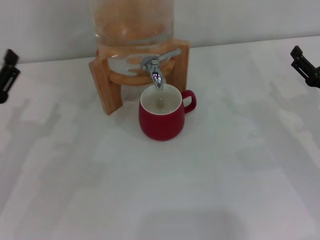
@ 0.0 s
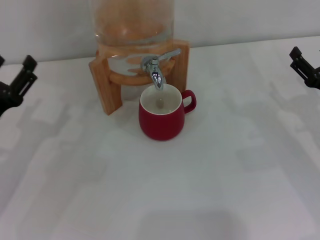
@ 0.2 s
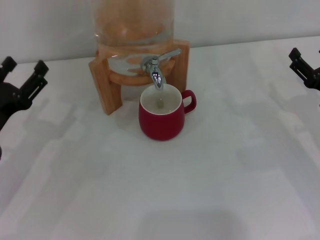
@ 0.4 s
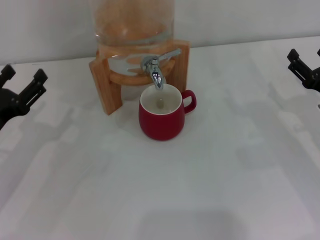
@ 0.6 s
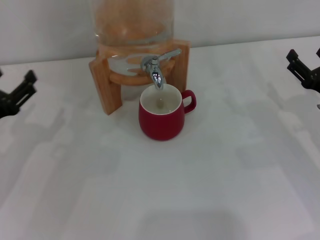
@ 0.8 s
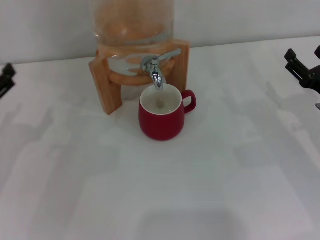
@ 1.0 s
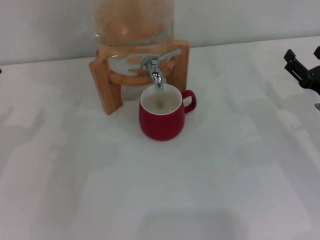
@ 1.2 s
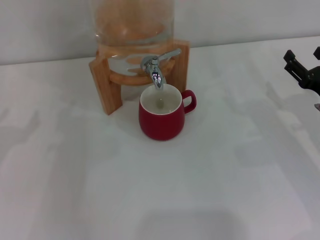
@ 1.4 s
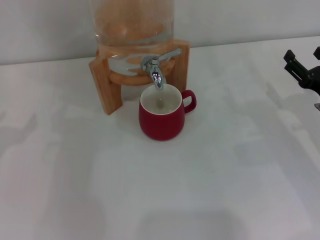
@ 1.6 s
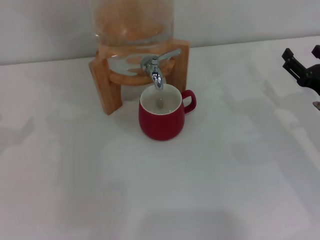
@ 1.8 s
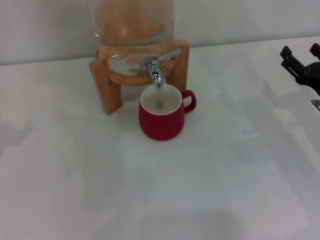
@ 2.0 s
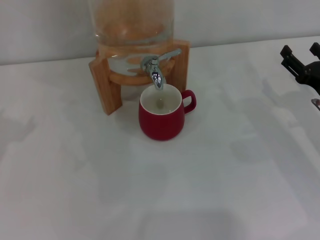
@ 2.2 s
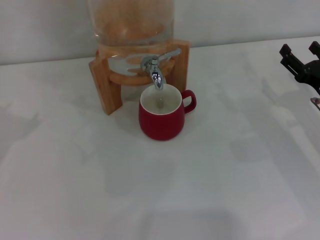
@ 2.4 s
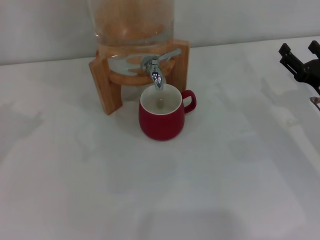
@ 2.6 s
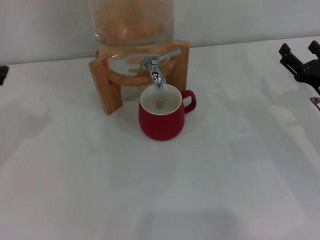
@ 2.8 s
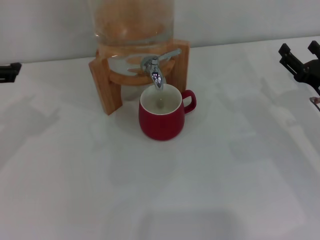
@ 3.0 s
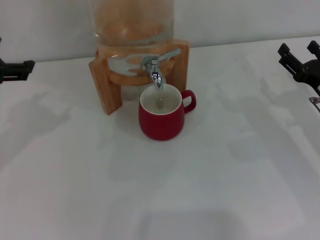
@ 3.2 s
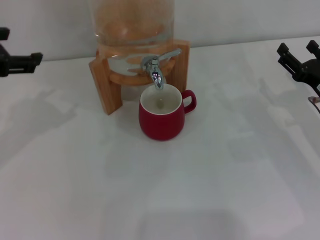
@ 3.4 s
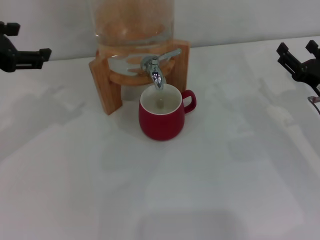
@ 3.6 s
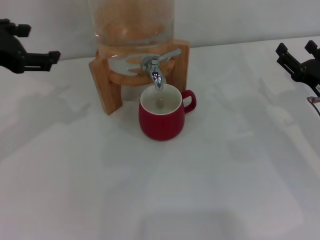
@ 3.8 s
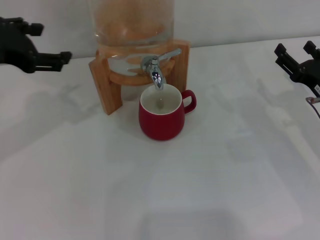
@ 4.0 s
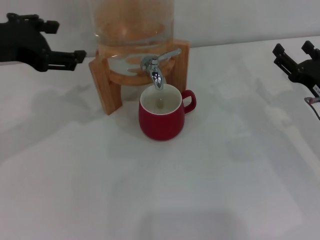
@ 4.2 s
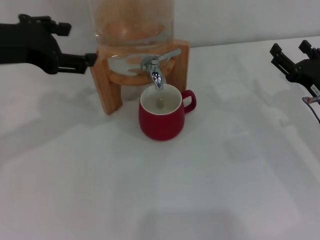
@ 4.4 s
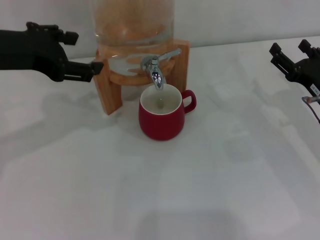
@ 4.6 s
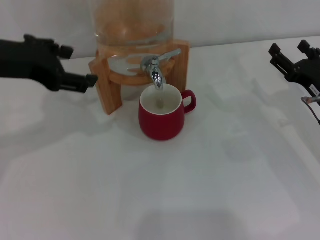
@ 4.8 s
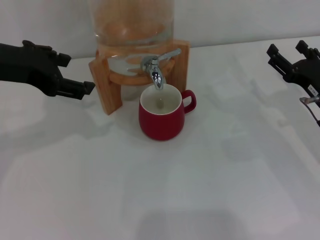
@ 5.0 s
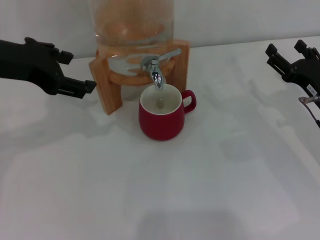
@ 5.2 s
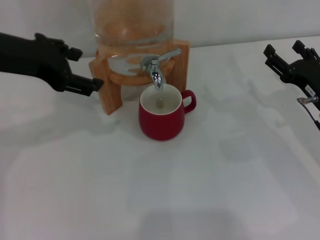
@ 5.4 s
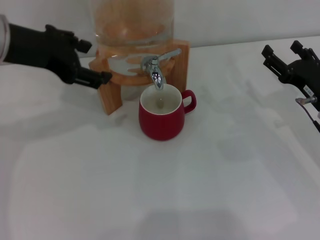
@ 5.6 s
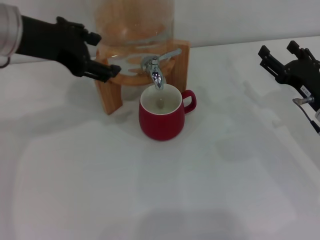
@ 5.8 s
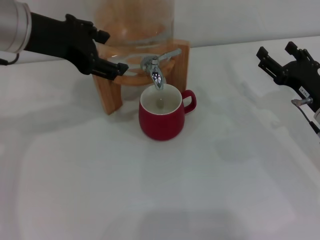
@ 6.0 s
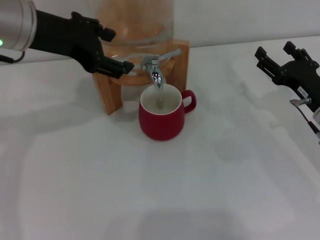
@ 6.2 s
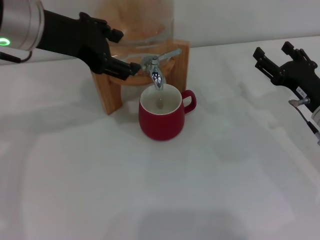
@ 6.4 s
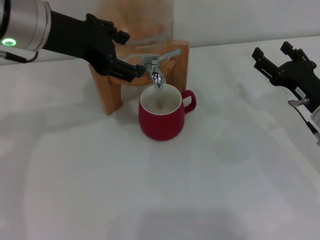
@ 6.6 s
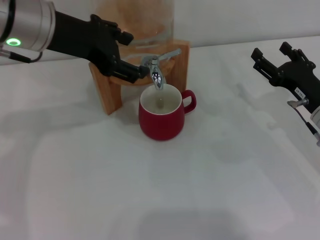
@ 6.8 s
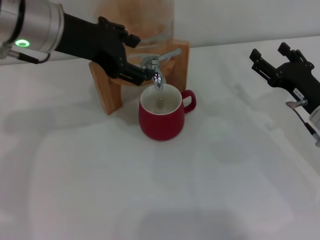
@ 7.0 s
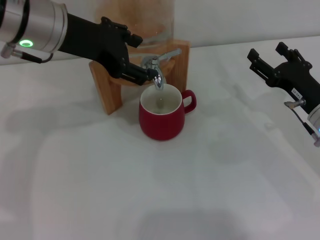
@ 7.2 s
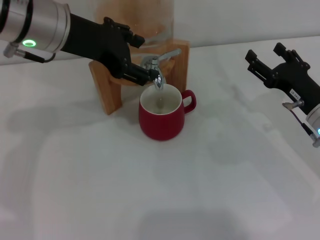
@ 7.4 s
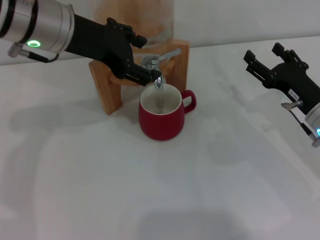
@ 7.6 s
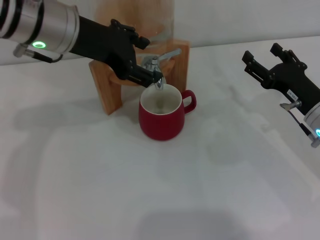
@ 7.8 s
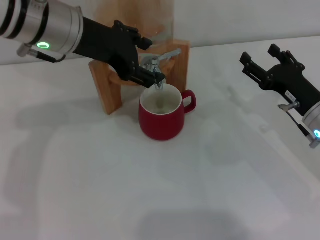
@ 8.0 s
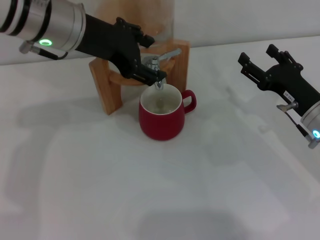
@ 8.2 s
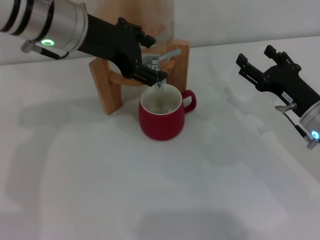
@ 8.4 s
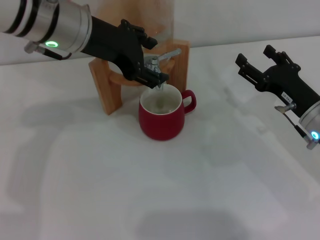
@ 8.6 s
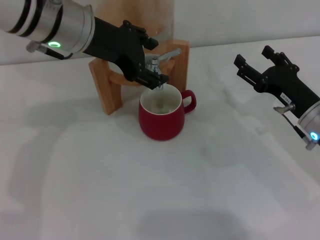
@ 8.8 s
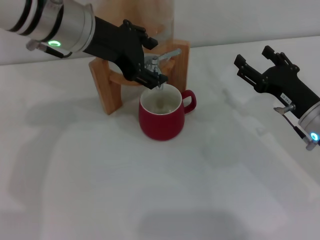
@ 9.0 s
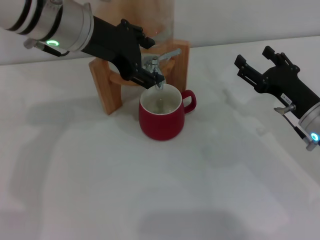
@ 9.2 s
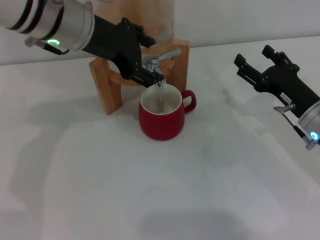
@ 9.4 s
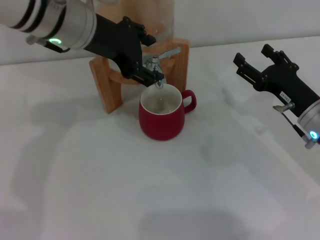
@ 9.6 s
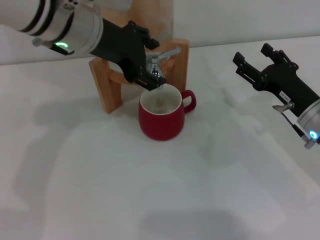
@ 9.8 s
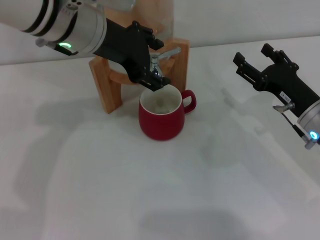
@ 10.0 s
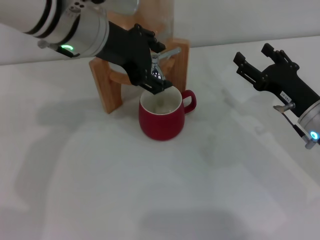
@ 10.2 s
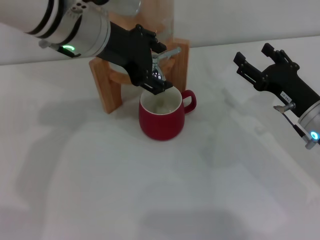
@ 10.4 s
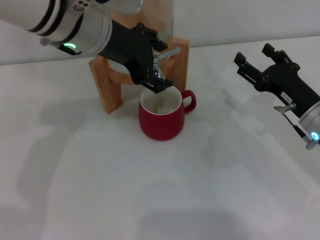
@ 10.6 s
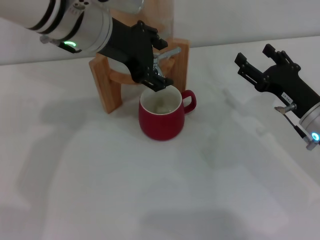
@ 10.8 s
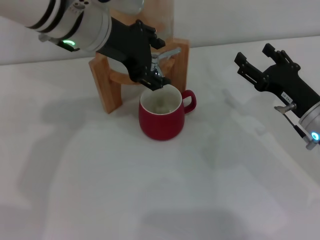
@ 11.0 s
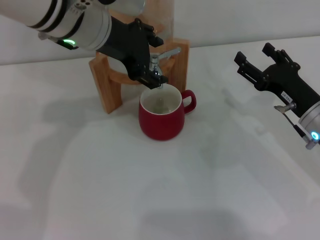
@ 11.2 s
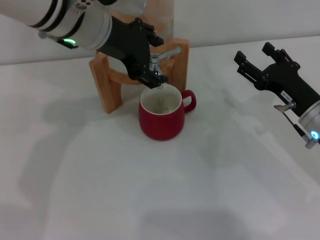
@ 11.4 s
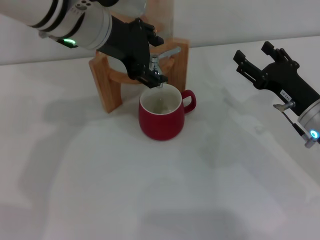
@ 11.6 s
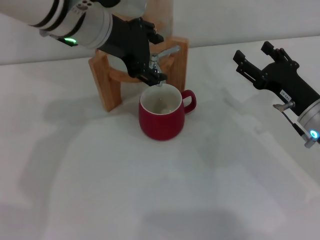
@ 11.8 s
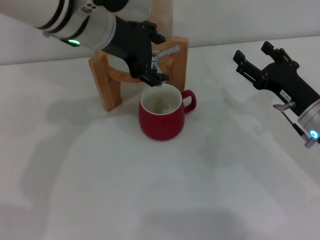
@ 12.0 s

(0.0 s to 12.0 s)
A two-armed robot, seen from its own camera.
Task of the whole recording: the right gripper pick up the red cup and place it horizontally under the faucet, the left gripper turn on the faucet to fill the cup, and then turn off the faucet.
0.0 s - 1.6 s: The left gripper moves upward, some 10 cm.
3.0 s - 4.4 s: The left gripper heads to the right, covering about 5 cm.
4.4 s - 6.0 s: The left gripper moves roughly 5 cm.
6.0 s - 7.6 s: The grippers stay close to where they were, moving slightly.
7.6 s - 10.4 s: The grippers move only a little.
10.4 s - 12.0 s: There are only small adjustments of the grippers.

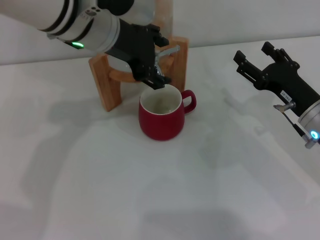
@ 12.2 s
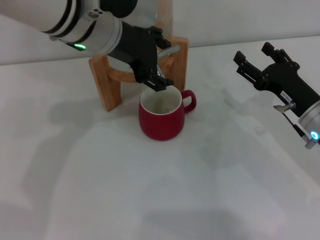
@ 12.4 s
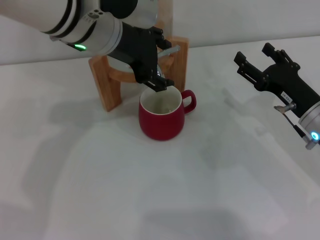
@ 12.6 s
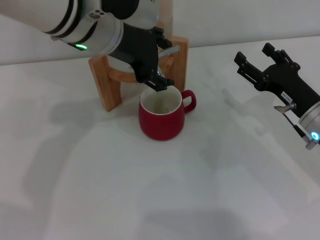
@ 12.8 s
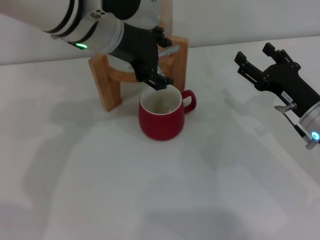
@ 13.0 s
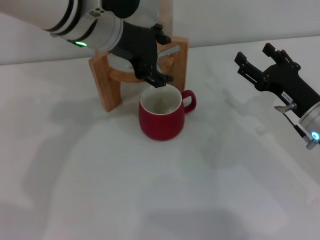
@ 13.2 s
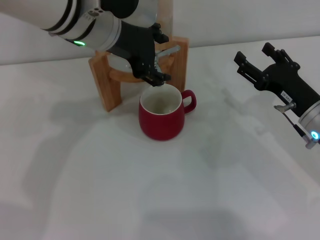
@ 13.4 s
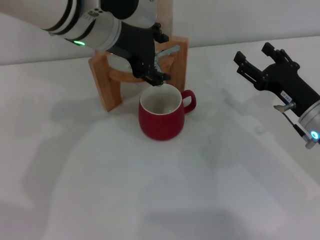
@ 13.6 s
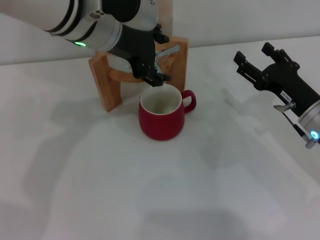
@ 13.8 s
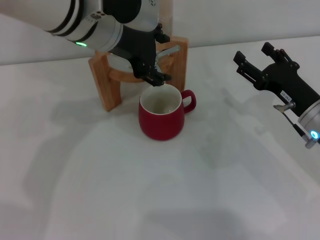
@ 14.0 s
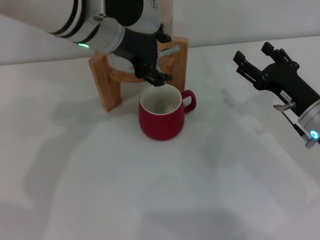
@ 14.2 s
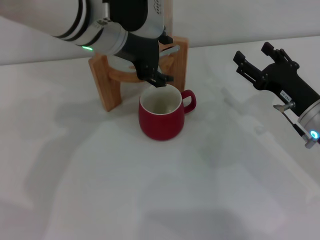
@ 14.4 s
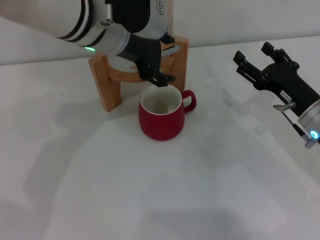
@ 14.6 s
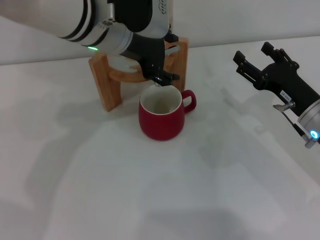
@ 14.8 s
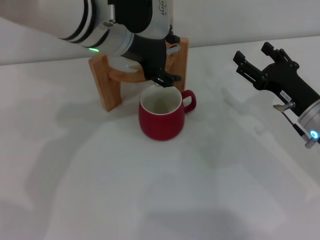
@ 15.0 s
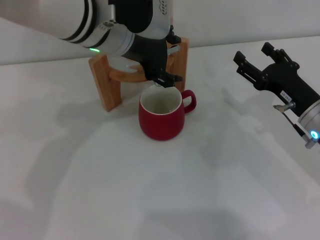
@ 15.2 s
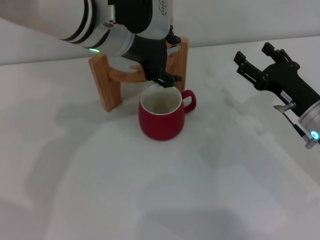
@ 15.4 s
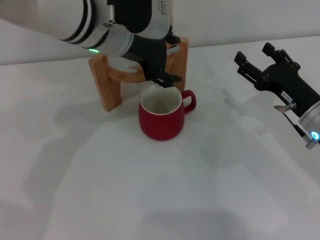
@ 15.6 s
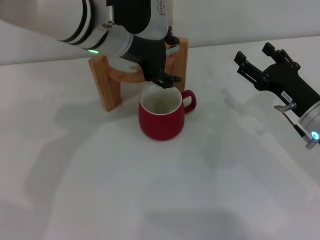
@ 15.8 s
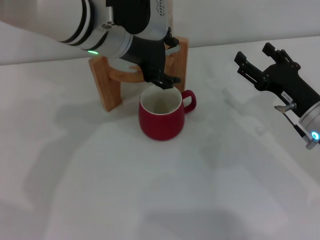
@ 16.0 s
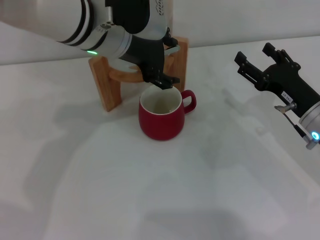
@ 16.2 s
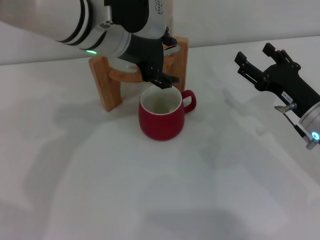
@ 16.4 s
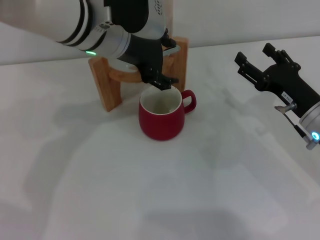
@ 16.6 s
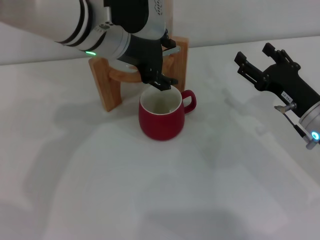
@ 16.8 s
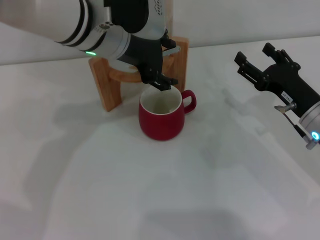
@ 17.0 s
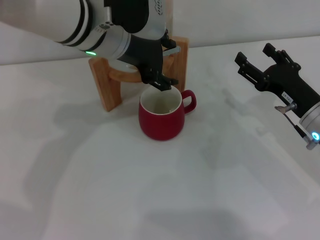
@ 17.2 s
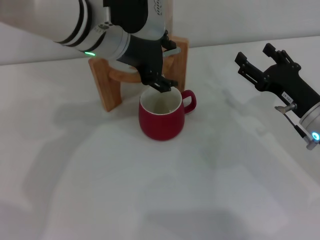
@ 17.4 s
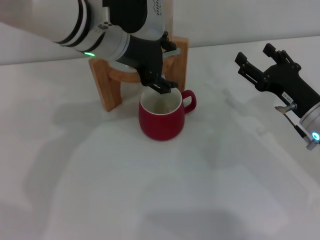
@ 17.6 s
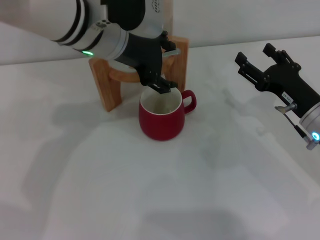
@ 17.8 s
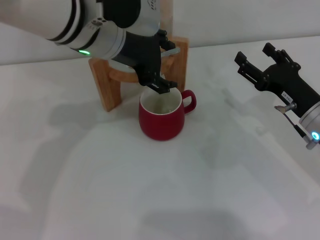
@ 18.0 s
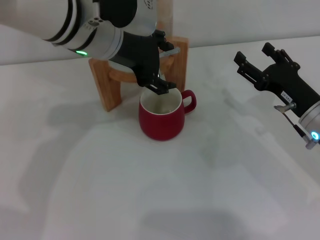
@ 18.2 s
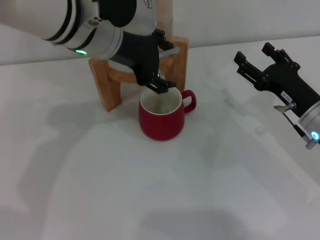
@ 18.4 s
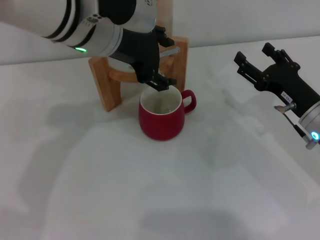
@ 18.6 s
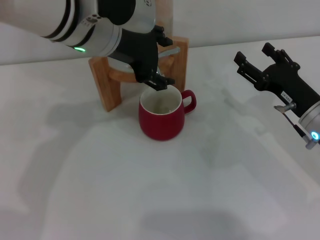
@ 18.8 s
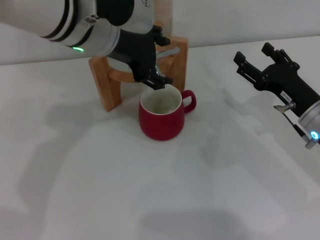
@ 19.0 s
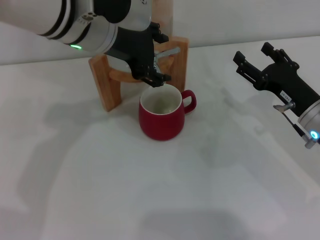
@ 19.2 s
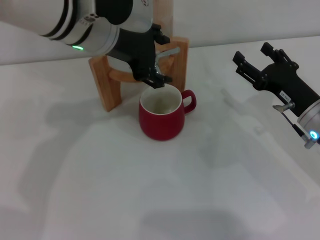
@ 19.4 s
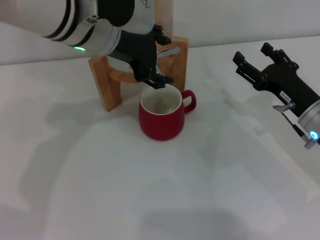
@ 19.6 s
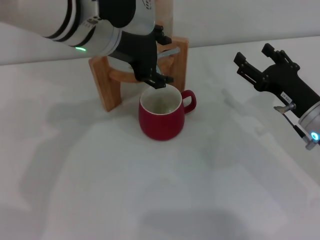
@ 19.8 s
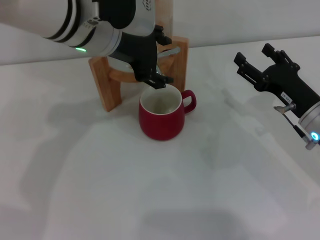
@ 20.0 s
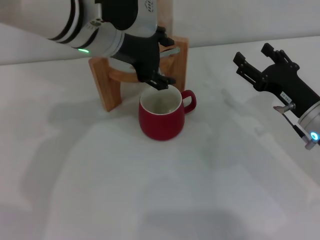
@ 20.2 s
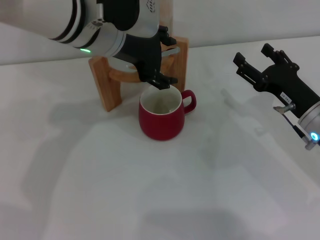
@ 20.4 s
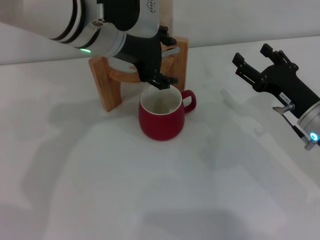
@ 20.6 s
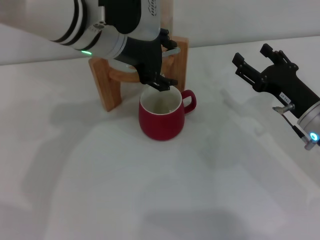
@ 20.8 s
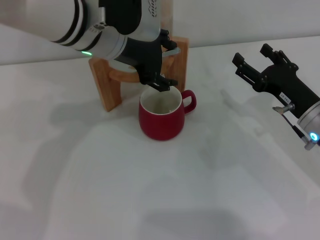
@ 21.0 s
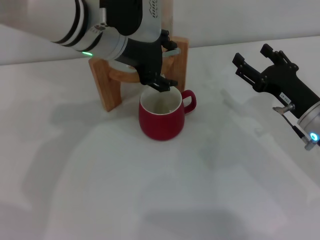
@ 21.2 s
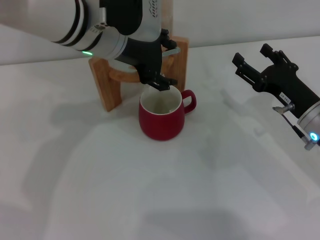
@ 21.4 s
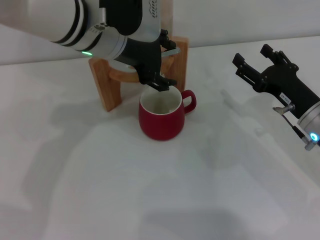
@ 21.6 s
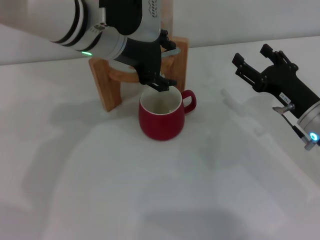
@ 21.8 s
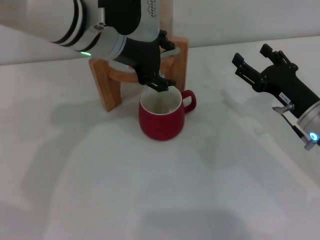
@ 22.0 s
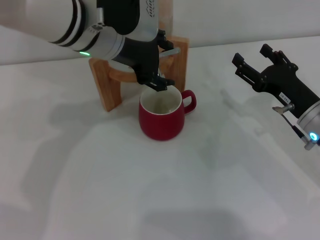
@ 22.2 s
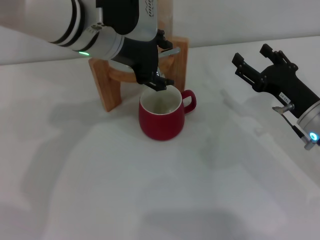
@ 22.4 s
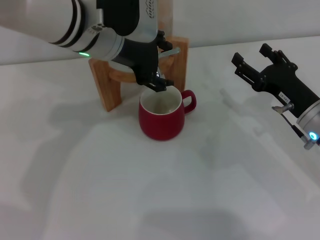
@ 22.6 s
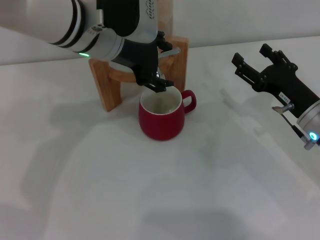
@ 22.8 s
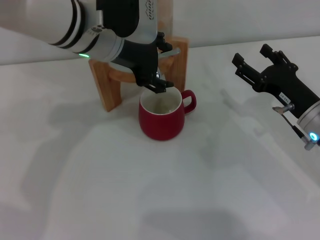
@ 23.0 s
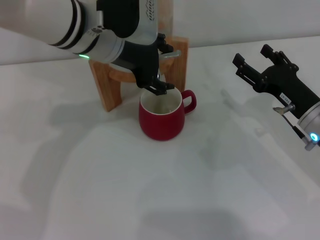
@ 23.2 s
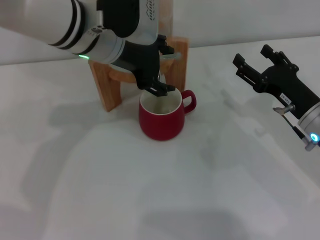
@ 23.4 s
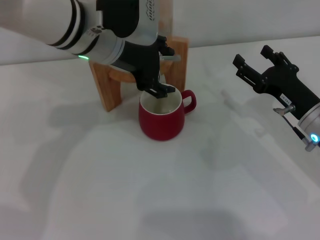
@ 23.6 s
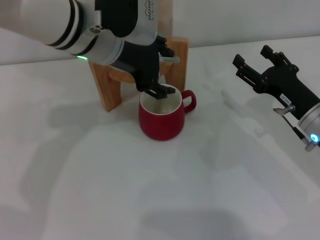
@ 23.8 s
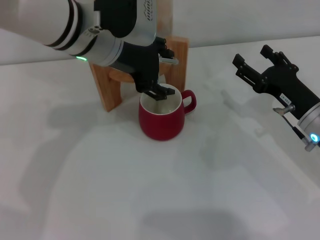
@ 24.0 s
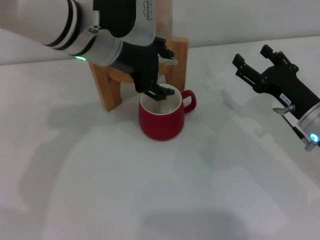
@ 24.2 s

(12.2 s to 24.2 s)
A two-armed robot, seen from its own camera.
Task of the whole recording: the right gripper pick up the red cup and place it horizontally under the faucet, the left gripper turn on the faucet to fill the cup, and then turn off the faucet.
12.2 s - 13.8 s: Both grippers stay put.
13.8 s - 15.2 s: The grippers make only small movements.
15.2 s - 16.6 s: Both grippers stay put.
16.6 s - 18.2 s: Both grippers stay about where they are.
18.2 s - 24.2 s: Both grippers stay put.
